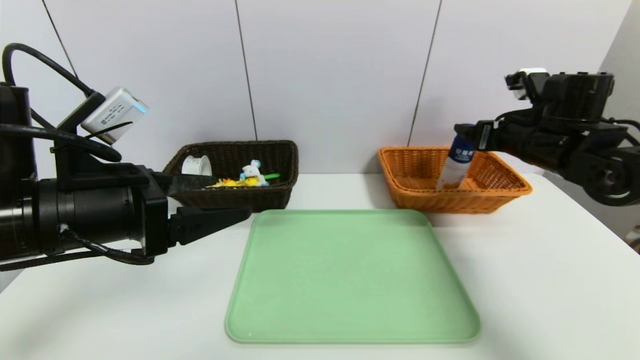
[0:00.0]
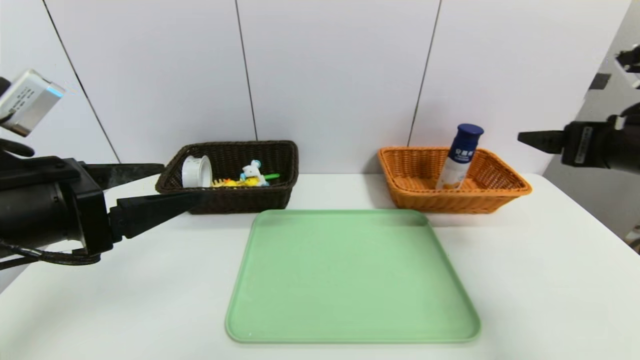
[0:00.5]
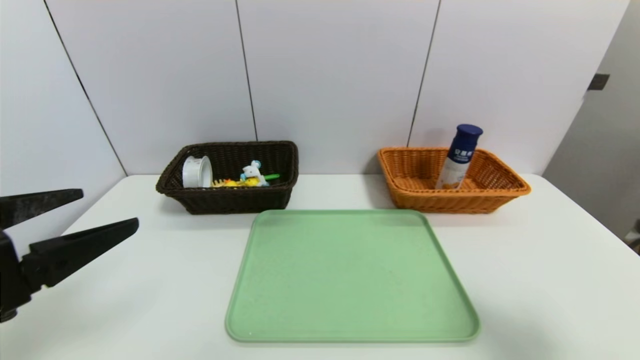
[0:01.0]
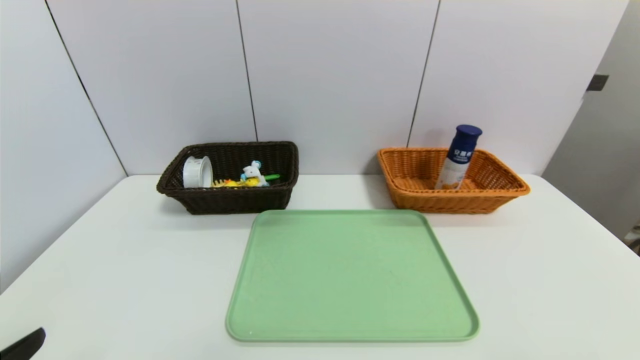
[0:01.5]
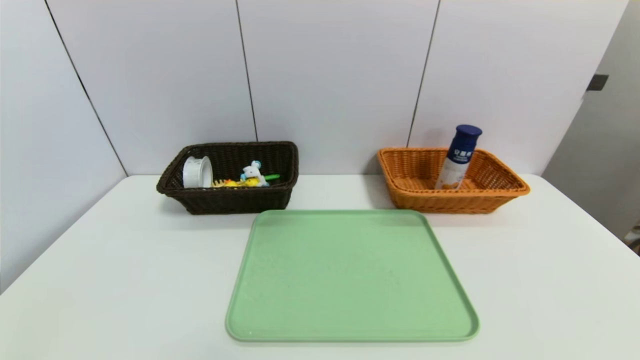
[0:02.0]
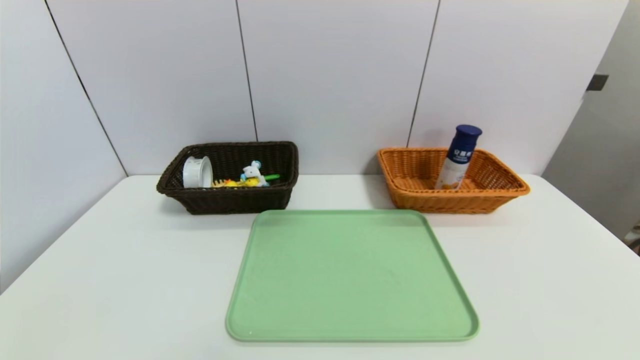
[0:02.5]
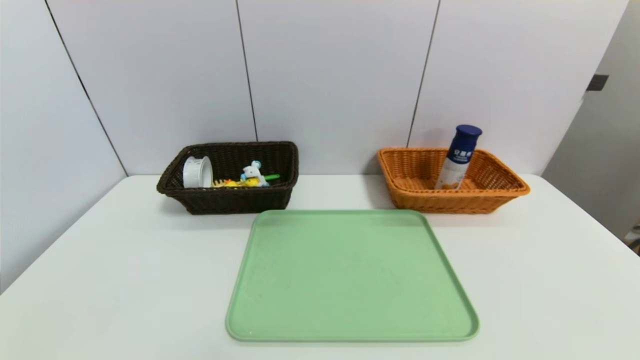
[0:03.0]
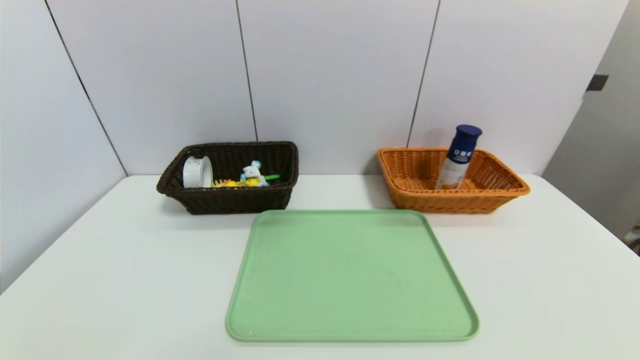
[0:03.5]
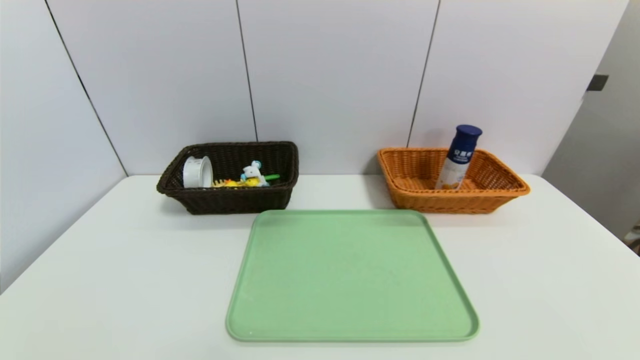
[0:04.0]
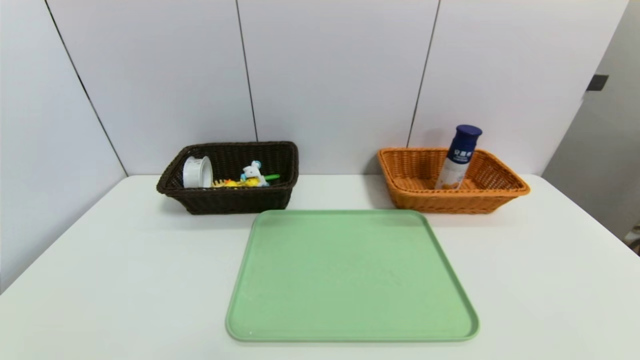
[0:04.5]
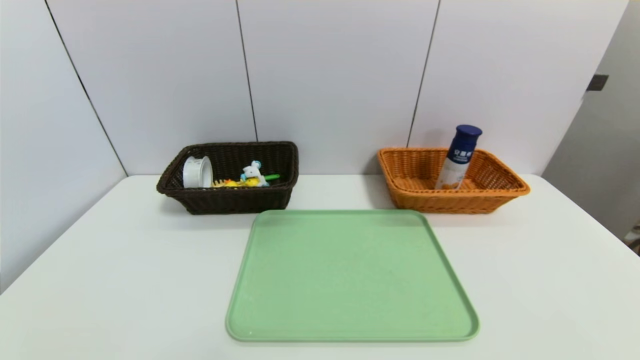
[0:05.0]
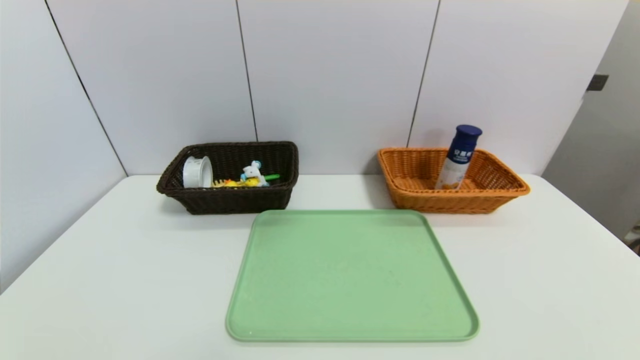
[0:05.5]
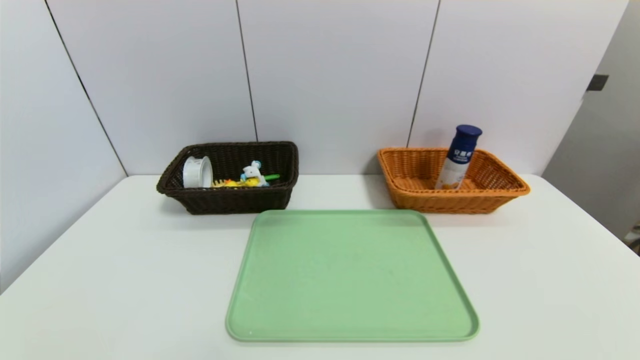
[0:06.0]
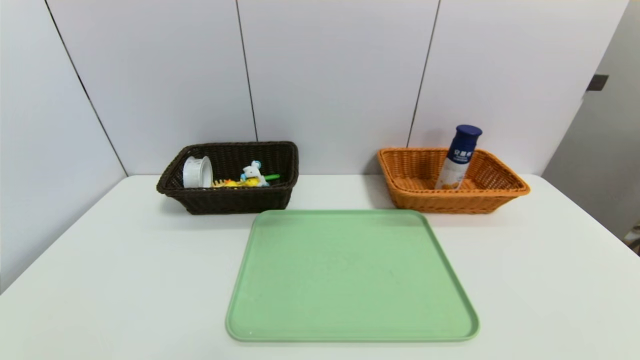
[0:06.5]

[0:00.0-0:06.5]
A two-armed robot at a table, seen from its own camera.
Task of the whole recording: place the food in the right basket with the right gripper, and place the non food items in the left basket with the left gripper.
0:00.0 to 0:02.0: The right gripper shifts some 40 cm backward. The left gripper moves backward, roughly 20 cm.

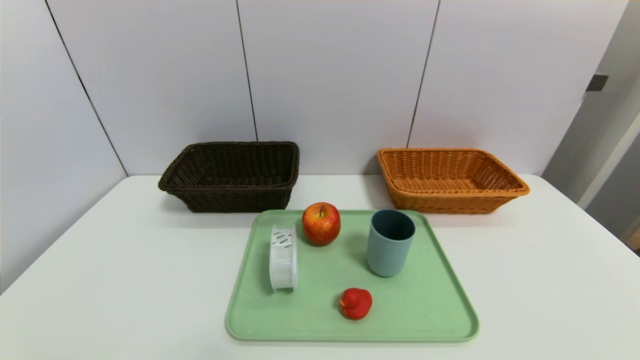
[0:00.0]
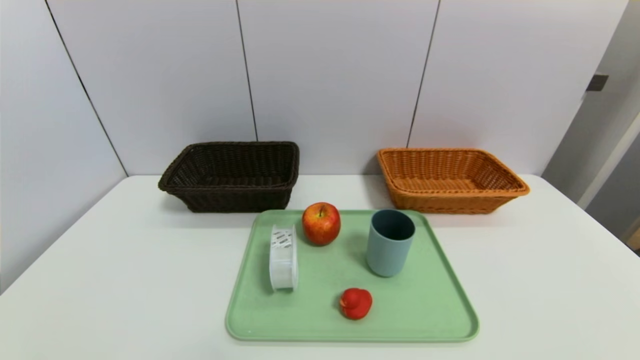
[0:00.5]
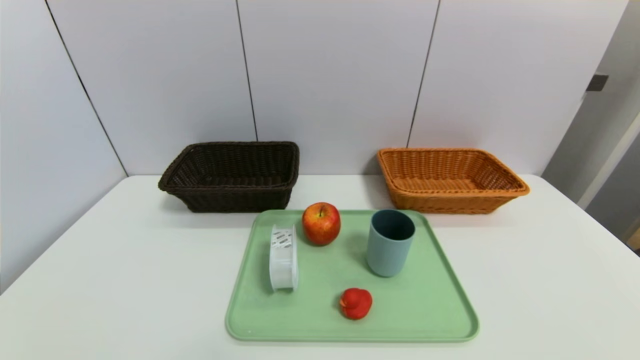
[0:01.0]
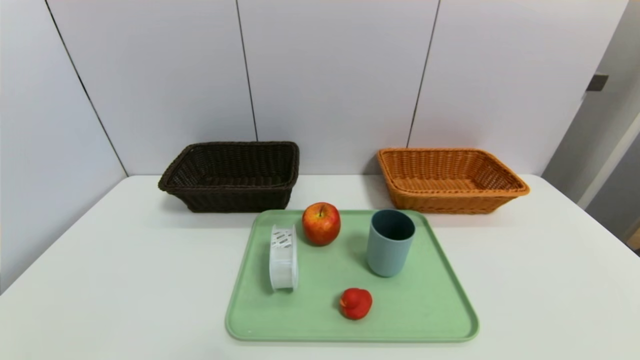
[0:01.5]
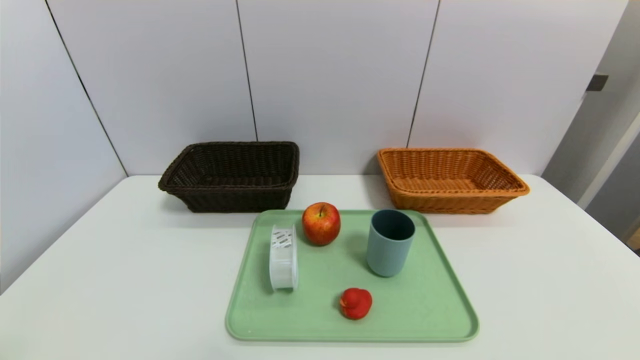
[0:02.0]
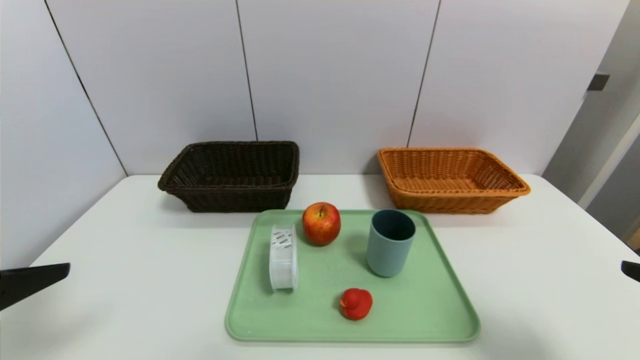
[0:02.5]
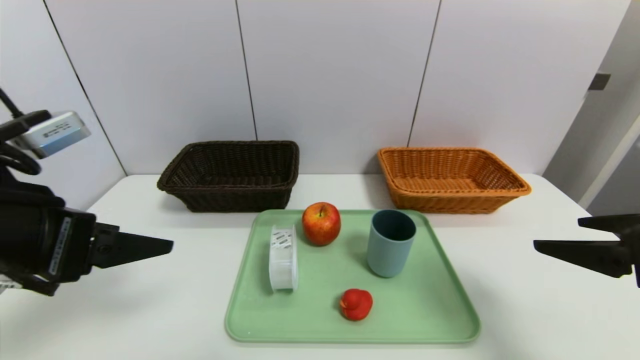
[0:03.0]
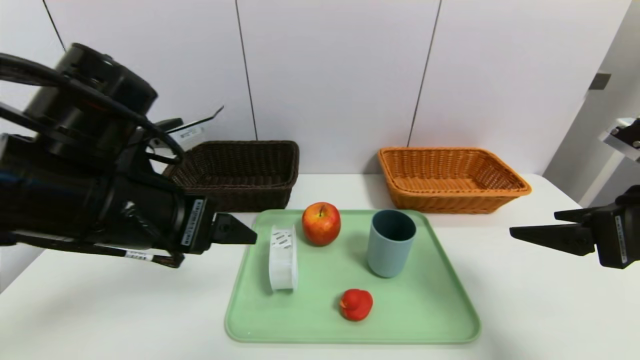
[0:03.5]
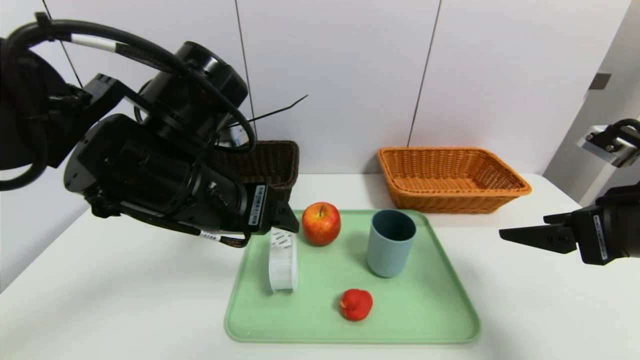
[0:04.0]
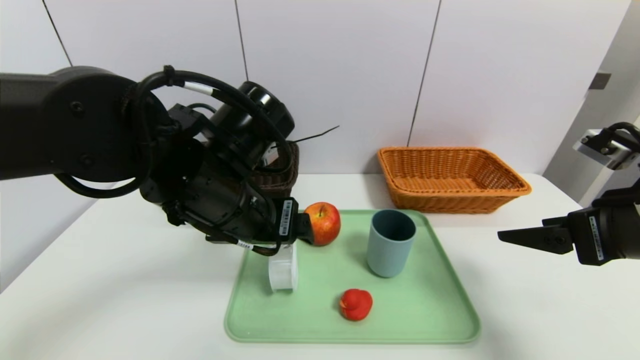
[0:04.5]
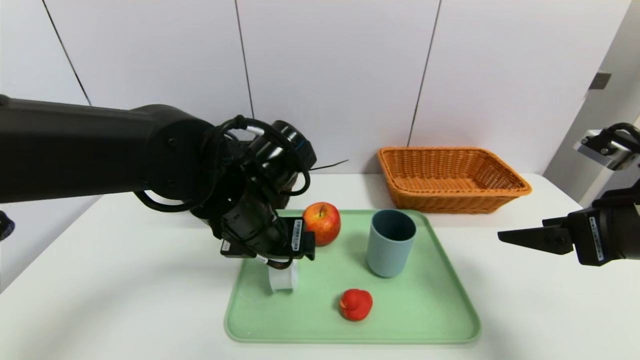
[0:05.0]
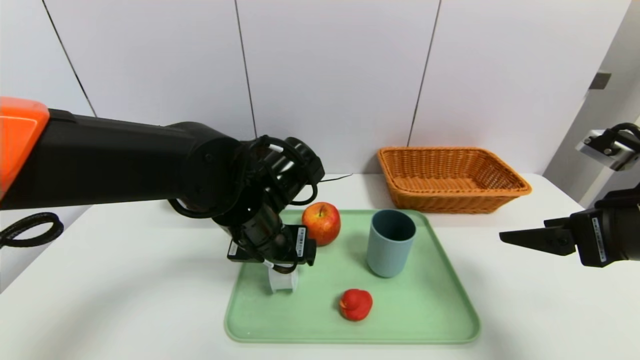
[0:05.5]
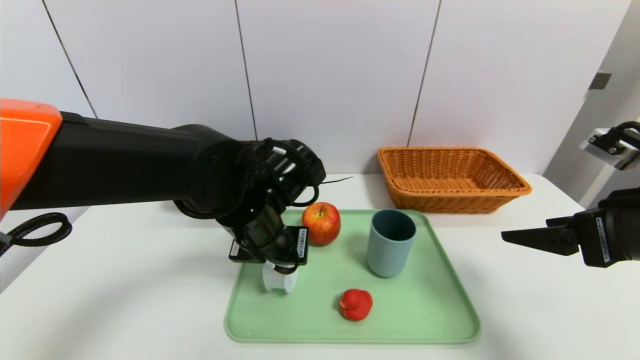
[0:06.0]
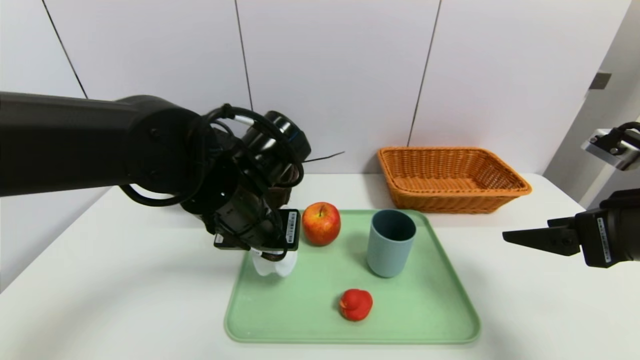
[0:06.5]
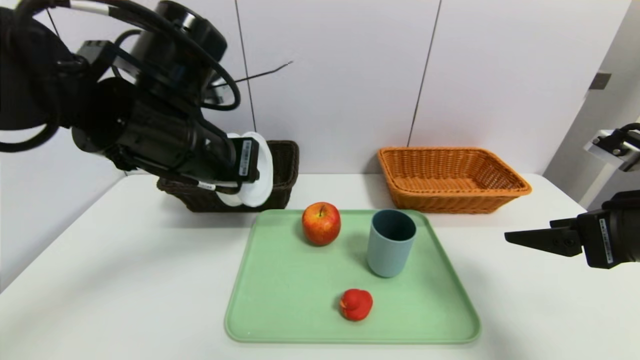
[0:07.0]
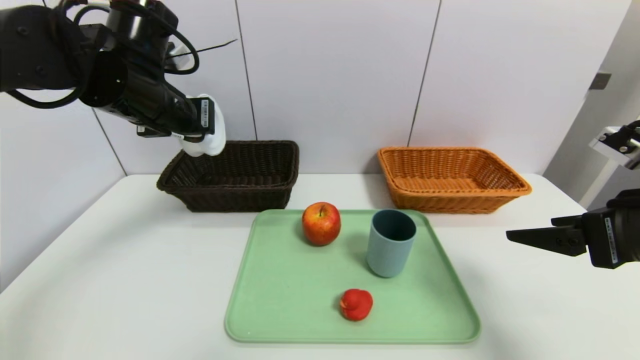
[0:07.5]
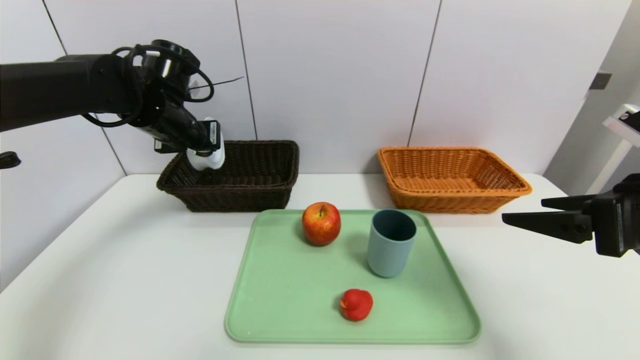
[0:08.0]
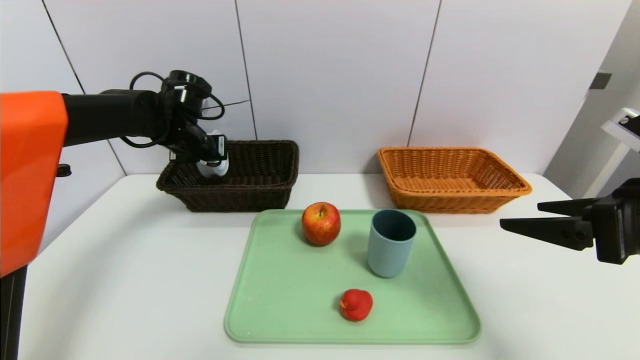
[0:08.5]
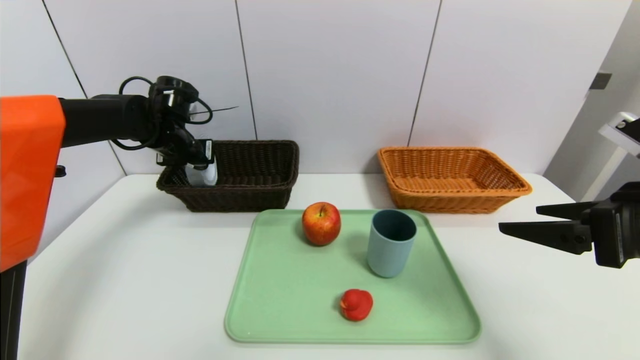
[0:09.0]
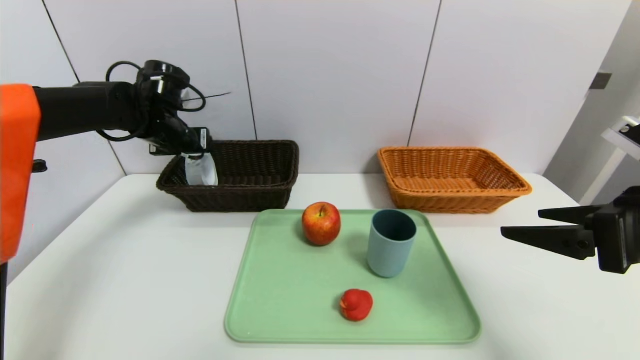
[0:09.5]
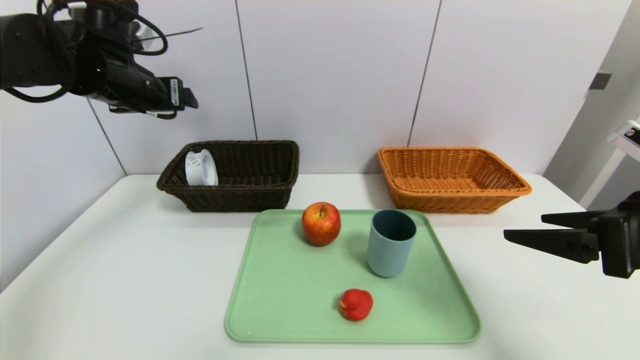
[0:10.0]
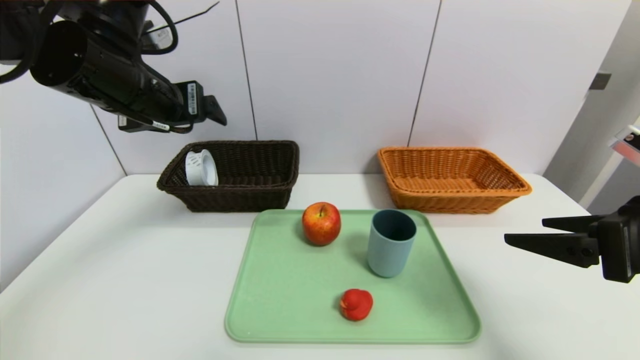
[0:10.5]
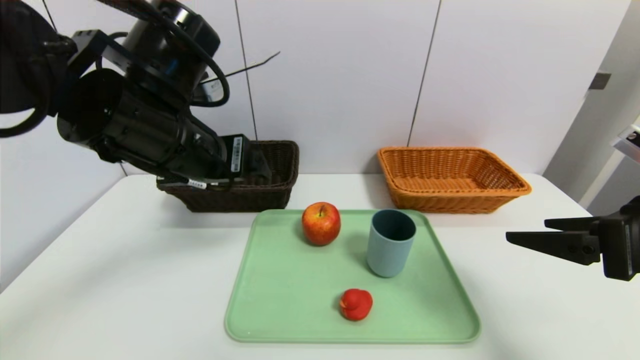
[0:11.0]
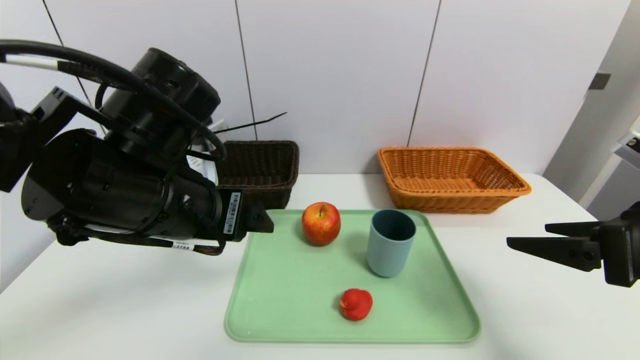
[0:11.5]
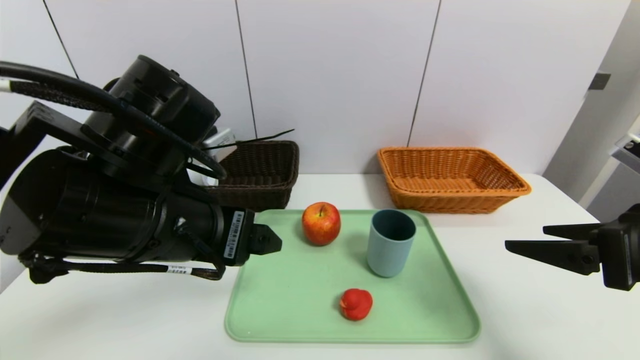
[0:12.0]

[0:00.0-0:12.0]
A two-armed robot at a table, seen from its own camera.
Task of the whole recording: place the food in the right basket with the right gripper, and place the non food items in the left basket with the left gripper.
Step, 0:00.0 to 0:09.0: Grasp the tape and put it in the left basket.
0:02.0 to 0:04.0: The right gripper is displaced forward by some 20 cm, while the left gripper heads forward and to the right, covering some 30 cm.
0:04.0 to 0:06.0: The left gripper is displaced downward and forward by some 10 cm, and closes its fingers.
0:06.0 to 0:08.0: The left gripper shifts some 20 cm to the left, forward and upward.
0:08.0 to 0:10.0: The left gripper travels upward by approximately 5 cm, and opens.
0:10.0 to 0:12.0: The left gripper moves backward and to the right, some 20 cm.

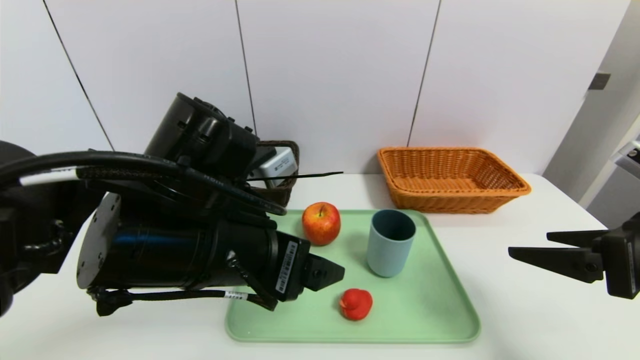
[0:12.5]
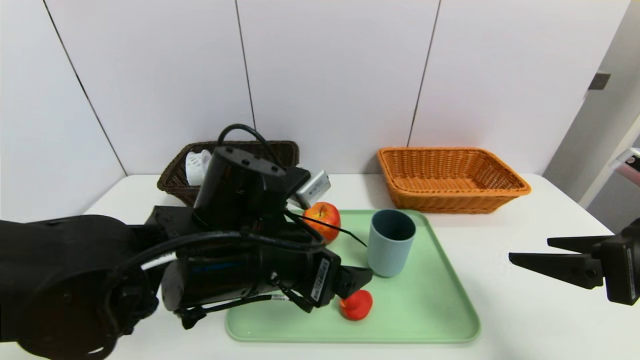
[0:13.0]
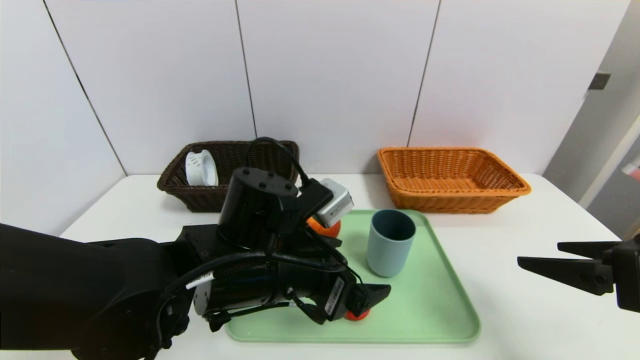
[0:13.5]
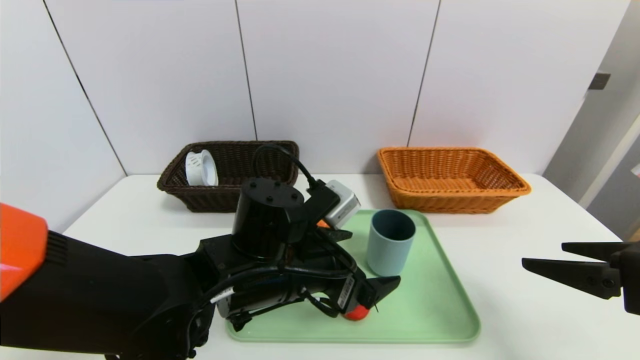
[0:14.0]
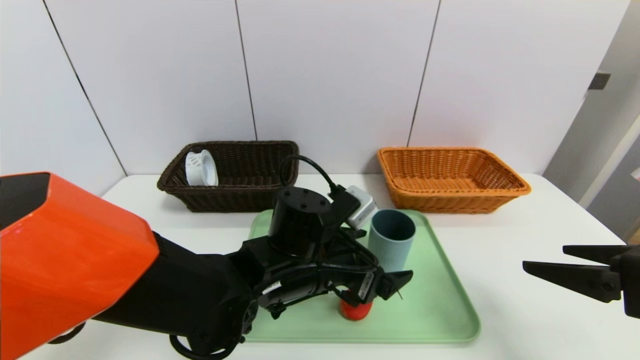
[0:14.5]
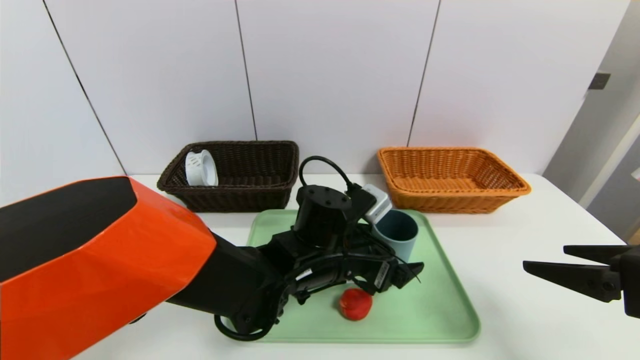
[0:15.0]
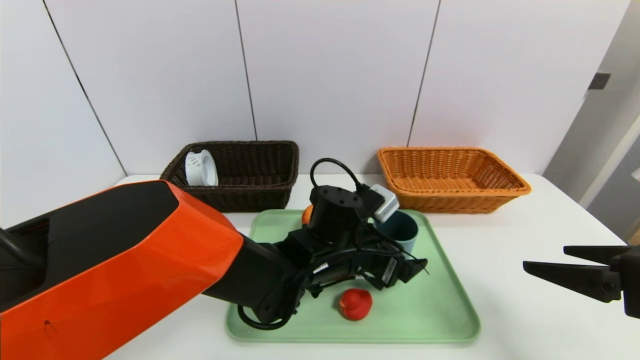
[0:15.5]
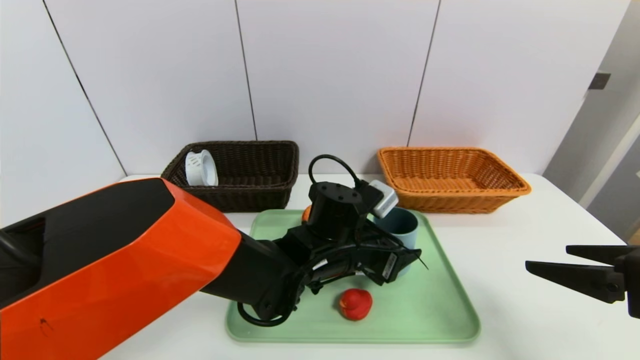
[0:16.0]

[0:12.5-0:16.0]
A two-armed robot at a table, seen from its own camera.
Task of the whole recording: place the food in the right basket with the right gripper, and place the non food items in the left basket with the left gripper.
0:12.5 to 0:14.5: The left gripper goes roughly 15 cm downward, to the right and forward.
0:14.5 to 0:16.0: The left gripper shifts by some 5 cm, and closes its fingers.
